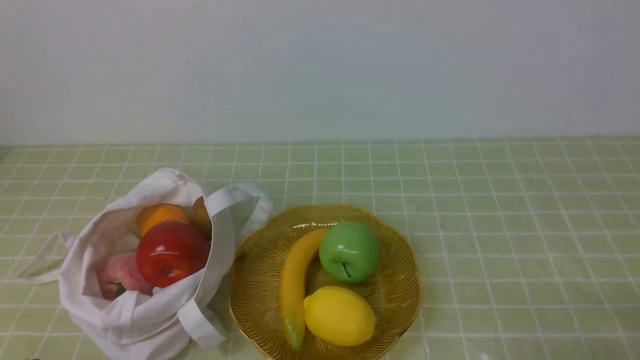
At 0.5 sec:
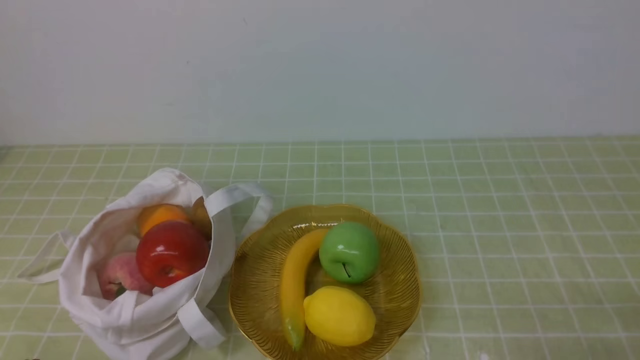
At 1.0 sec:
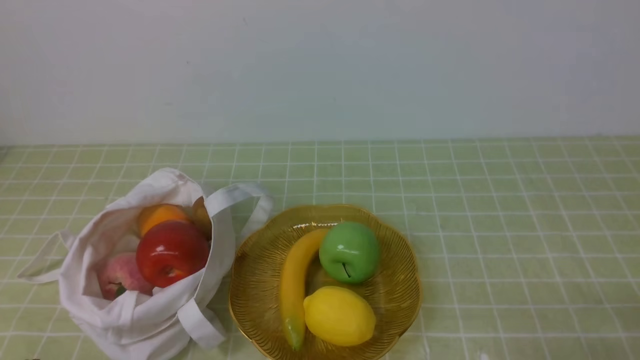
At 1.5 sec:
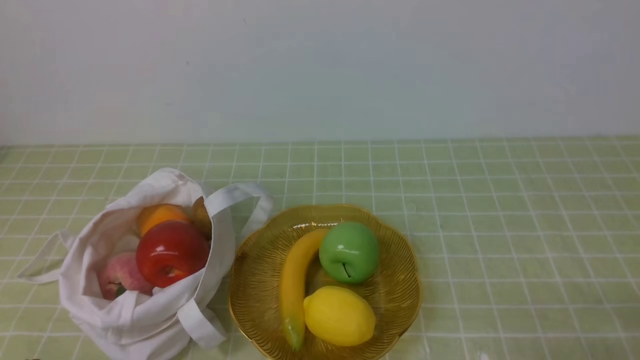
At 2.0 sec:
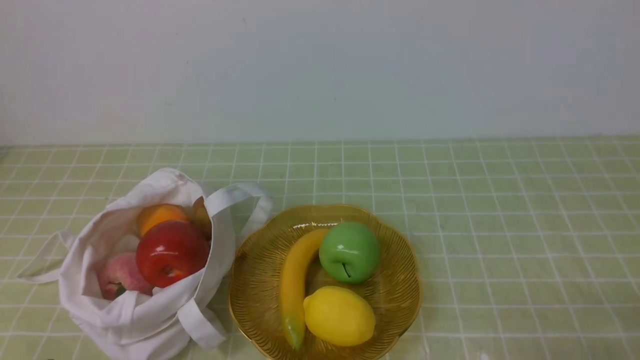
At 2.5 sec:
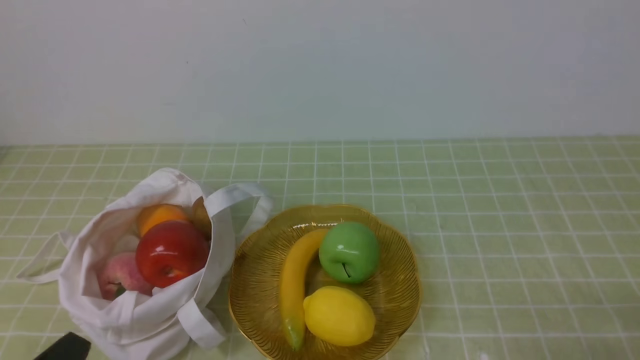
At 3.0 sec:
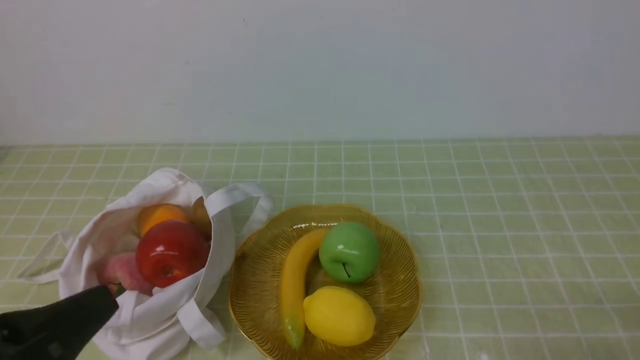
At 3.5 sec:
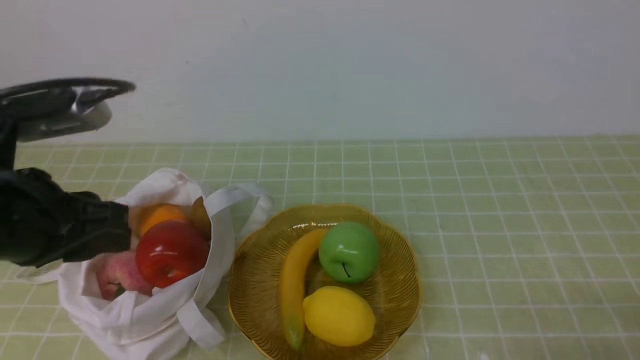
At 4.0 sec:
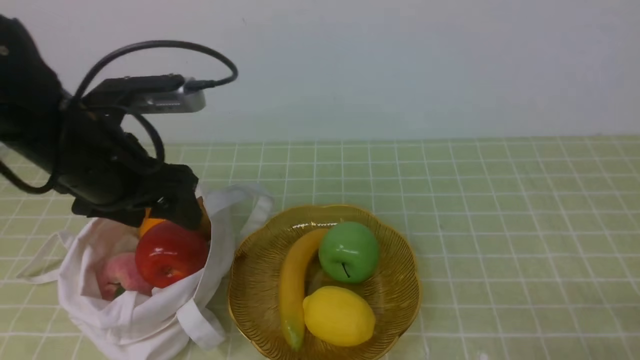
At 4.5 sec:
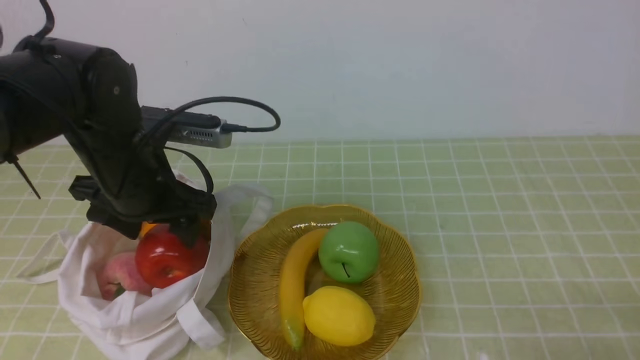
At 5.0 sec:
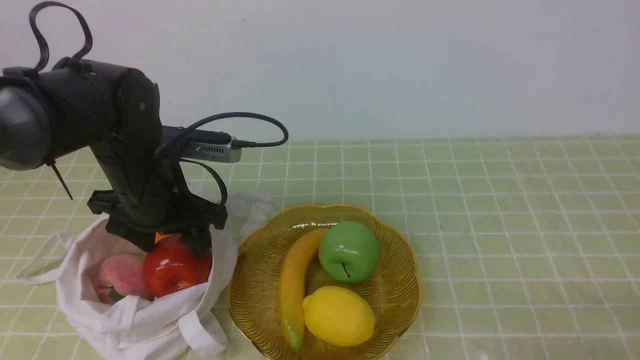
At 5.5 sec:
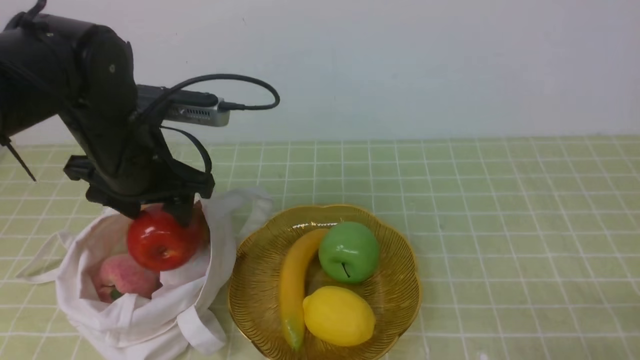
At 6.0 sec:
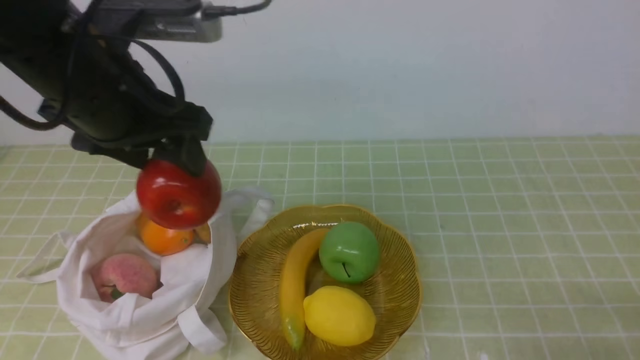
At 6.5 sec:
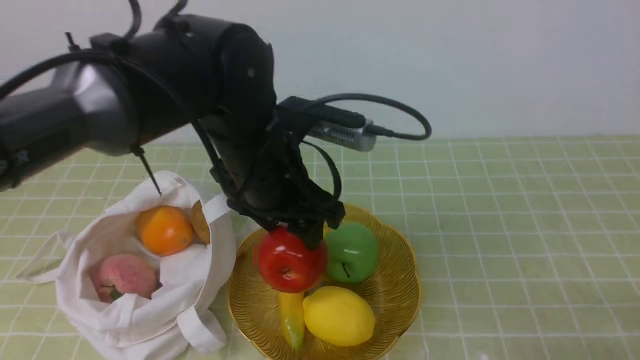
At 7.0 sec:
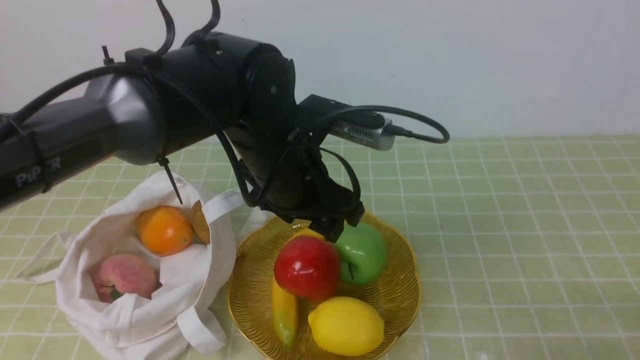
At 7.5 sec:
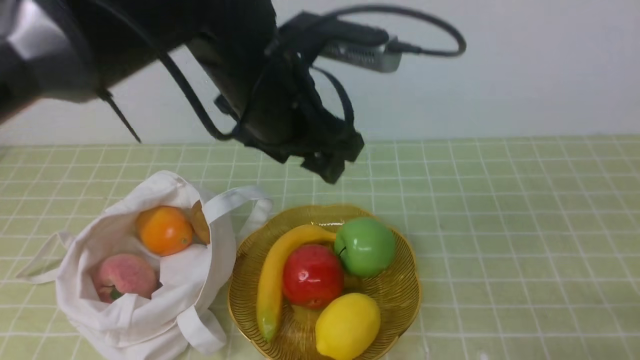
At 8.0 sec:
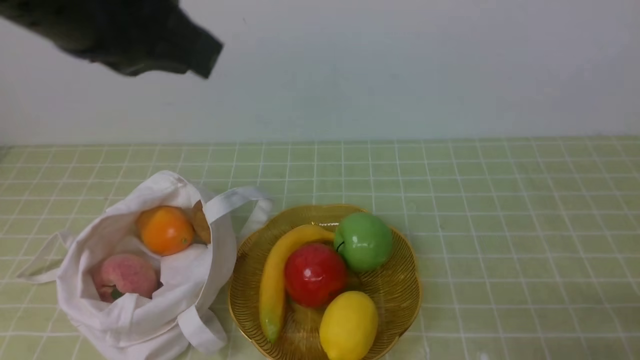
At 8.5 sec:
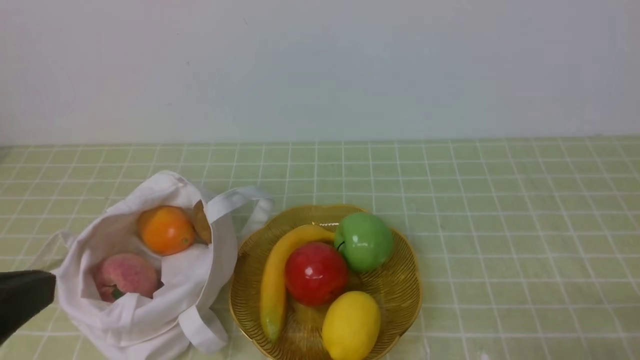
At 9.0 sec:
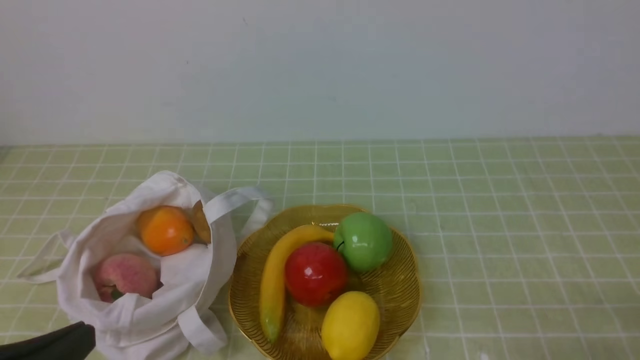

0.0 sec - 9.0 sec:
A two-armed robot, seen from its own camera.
Step, 0.0 sec - 5.0 sec: use the left arm to grab an apple from the bag.
Step, 5.5 sec - 7.0 sec: use the left arm to put the apple into the empty plate on the right.
2.0 sec - 4.5 sec: The left gripper goes some 25 cm forward, and opens up.
4.5 sec - 7.0 sec: The left gripper is displaced to the right by roughly 15 cm.
7.0 sec - 9.0 sec: The left gripper heads backward and to the left, covering approximately 30 cm, and closes its fingers.

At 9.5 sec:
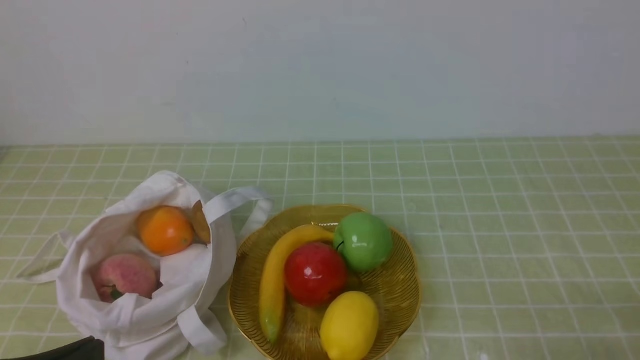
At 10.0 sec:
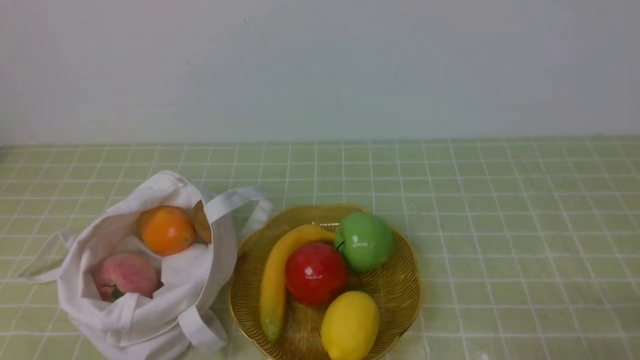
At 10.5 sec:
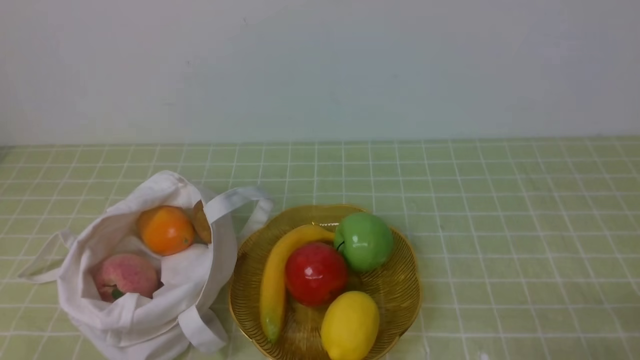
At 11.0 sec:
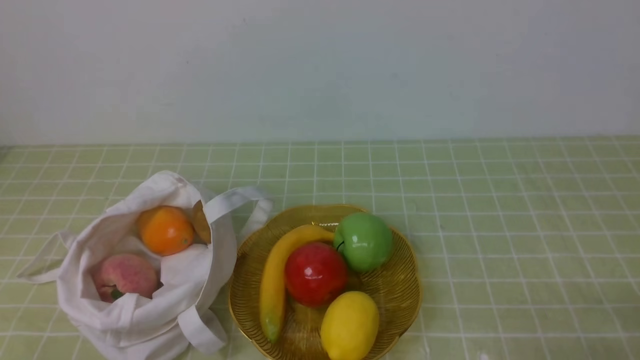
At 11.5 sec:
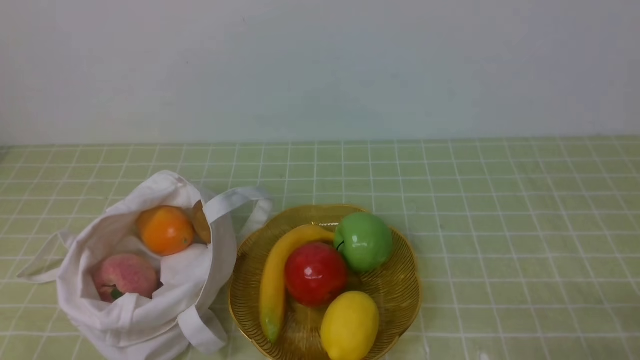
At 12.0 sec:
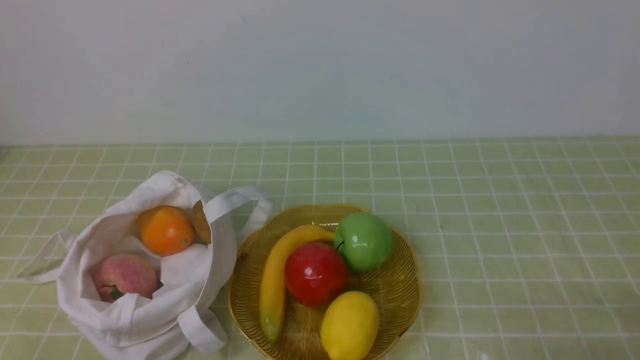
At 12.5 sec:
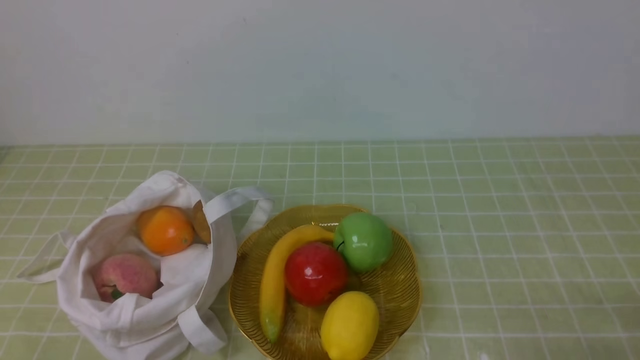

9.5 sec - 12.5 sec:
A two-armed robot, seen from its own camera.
11.0 sec - 12.5 sec: Neither gripper changes place.

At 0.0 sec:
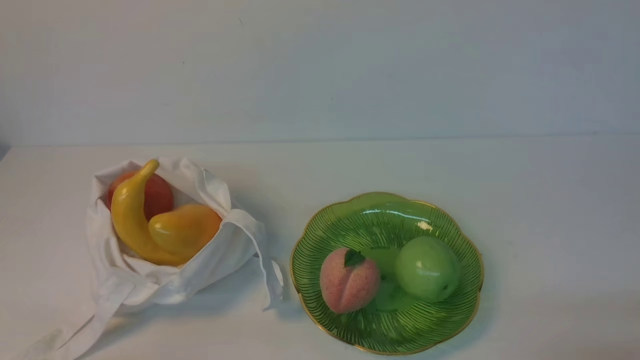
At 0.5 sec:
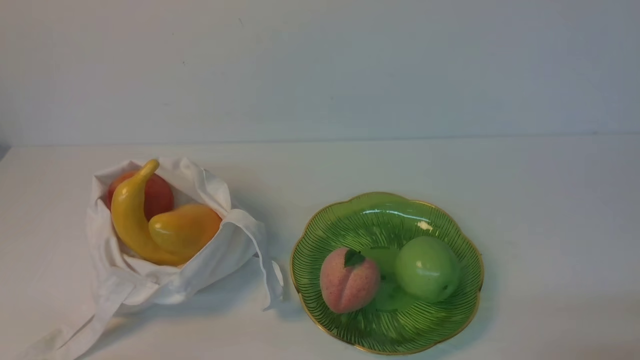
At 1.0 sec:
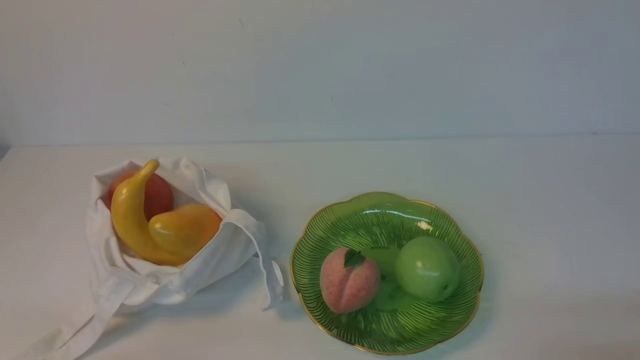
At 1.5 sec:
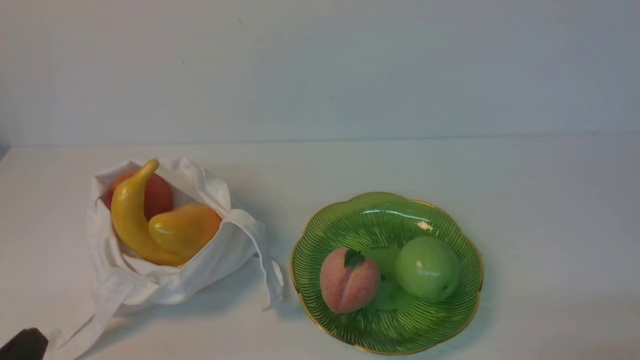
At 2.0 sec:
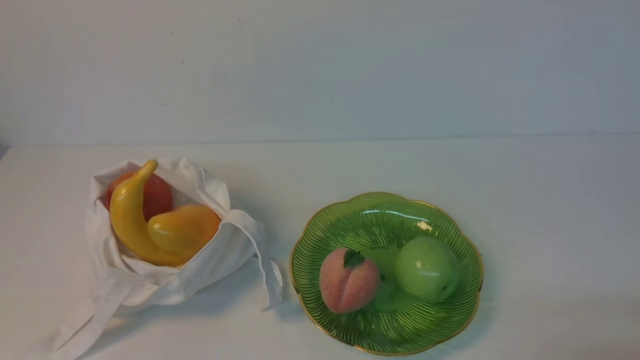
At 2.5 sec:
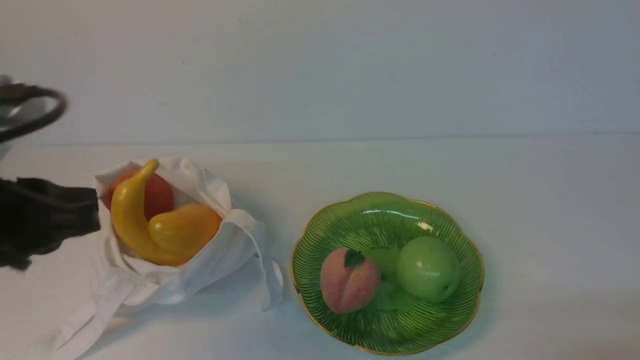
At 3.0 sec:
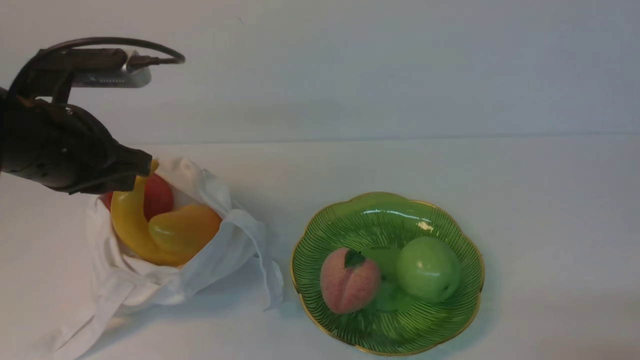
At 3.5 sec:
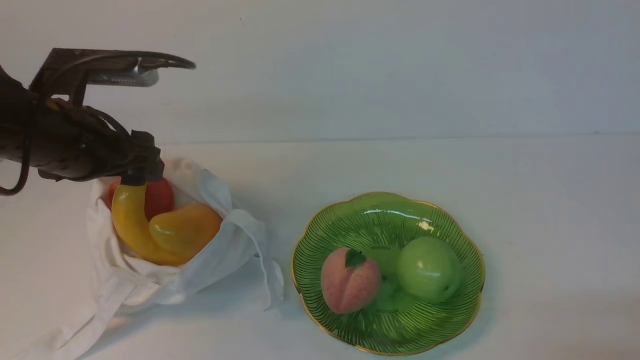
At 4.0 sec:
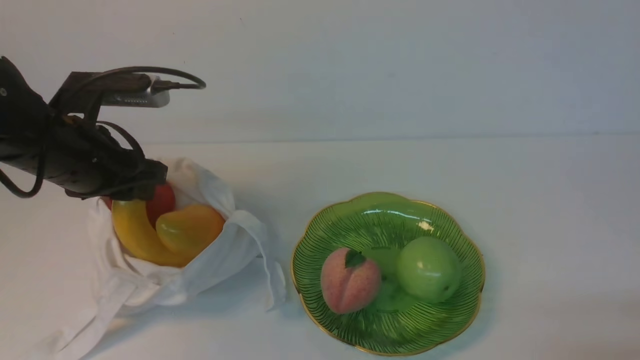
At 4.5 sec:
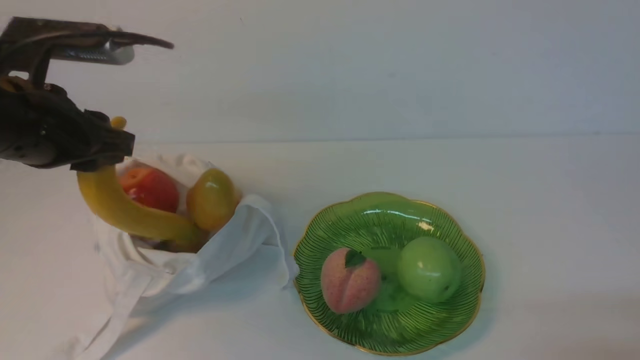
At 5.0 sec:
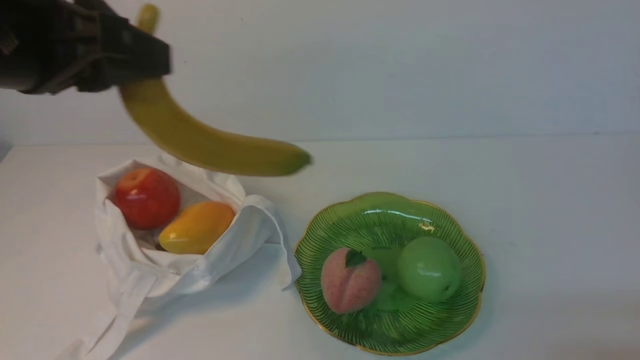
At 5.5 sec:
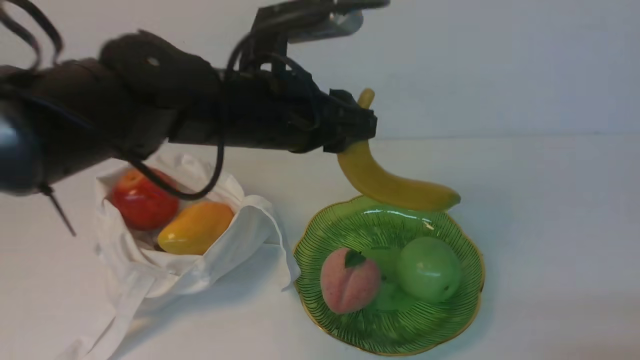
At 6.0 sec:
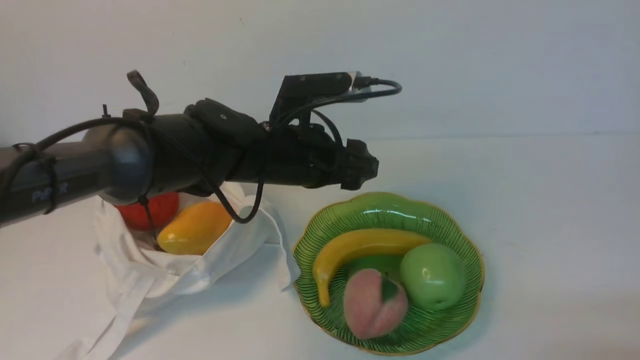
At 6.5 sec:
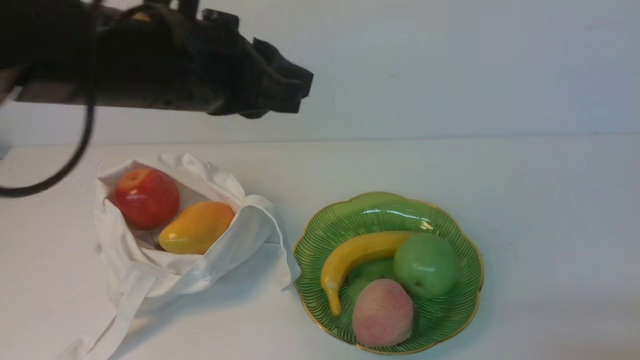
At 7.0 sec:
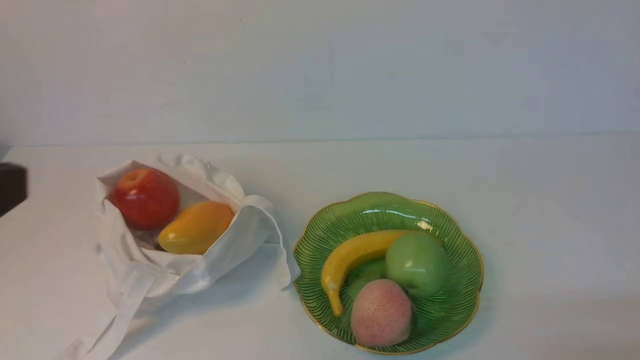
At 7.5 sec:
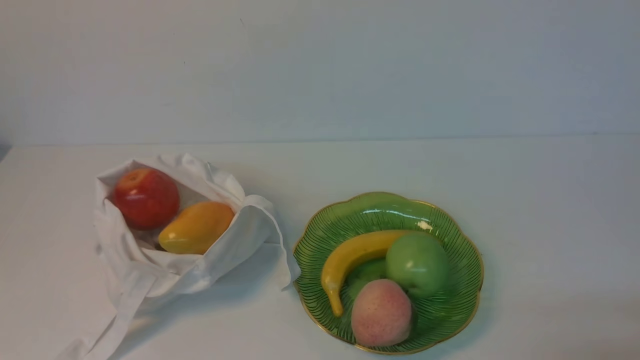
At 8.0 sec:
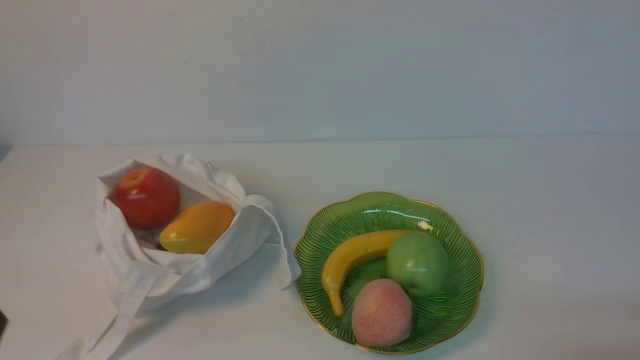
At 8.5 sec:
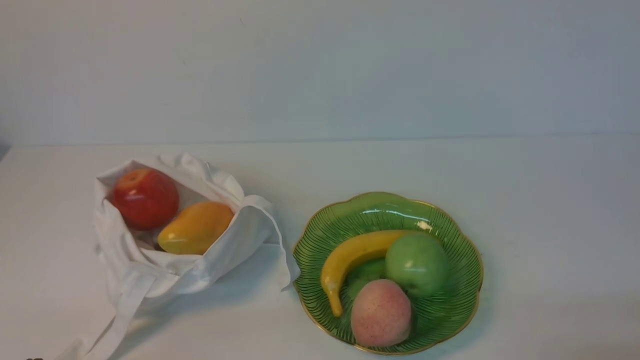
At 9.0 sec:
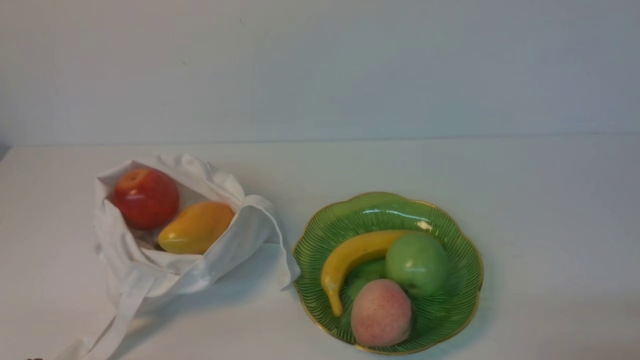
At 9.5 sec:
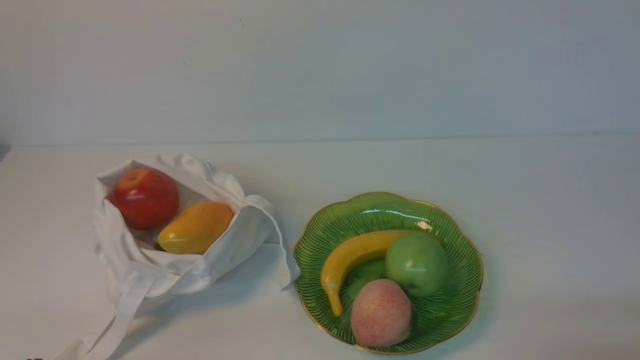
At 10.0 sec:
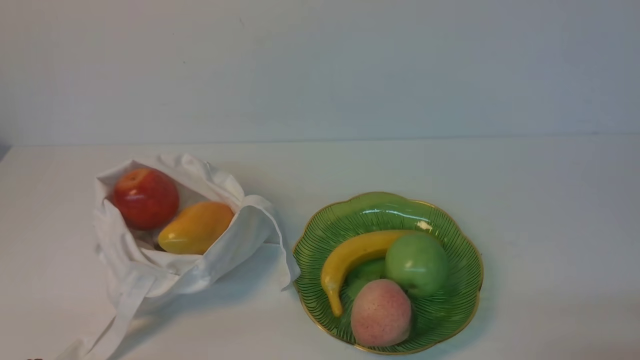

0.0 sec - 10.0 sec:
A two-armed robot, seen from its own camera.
Step, 0.0 sec - 4.0 sec: use the left arm to grab a banana from the bag.
Step, 4.5 sec - 6.0 sec: use the left arm to put the banana into the empty plate on the right.
2.0 sec - 4.0 sec: The left gripper heads forward, covering approximately 25 cm, and opens up.
4.0 sec - 6.0 sec: The left gripper goes roughly 20 cm to the right, and opens.
6.0 sec - 8.0 sec: The left gripper moves backward and to the left, about 35 cm, and closes its fingers.
